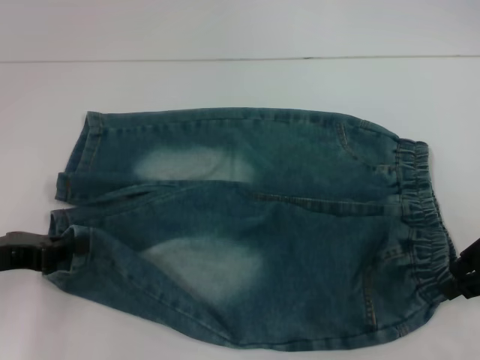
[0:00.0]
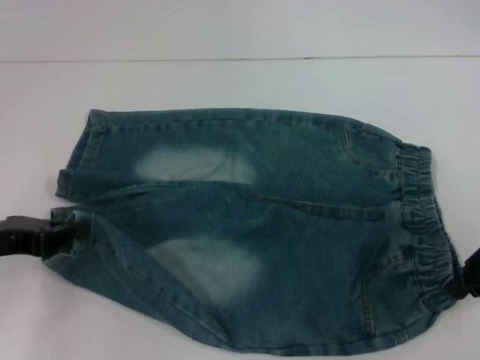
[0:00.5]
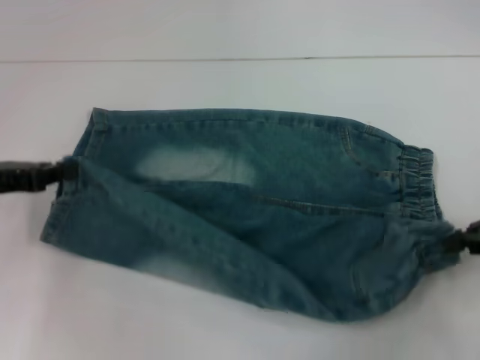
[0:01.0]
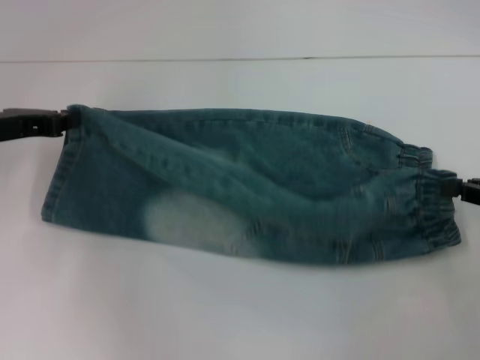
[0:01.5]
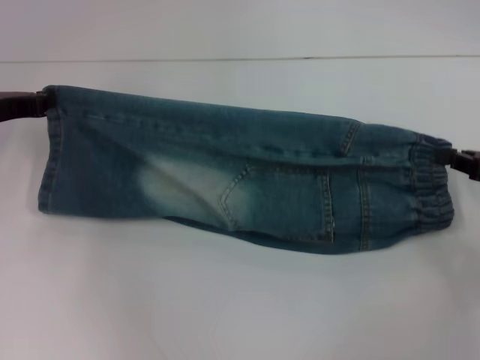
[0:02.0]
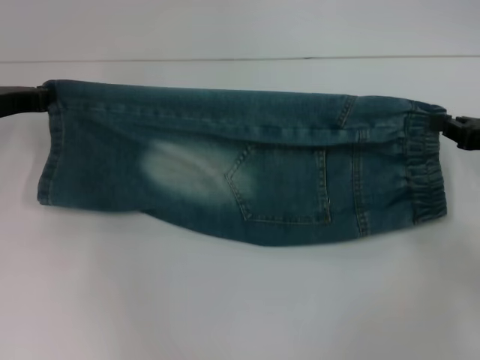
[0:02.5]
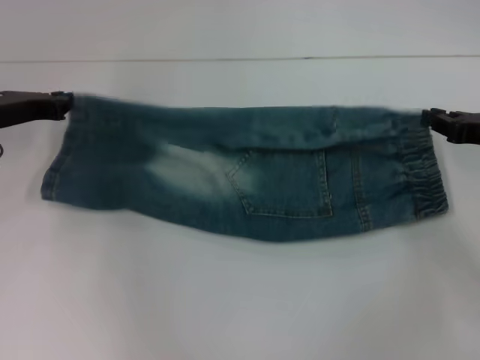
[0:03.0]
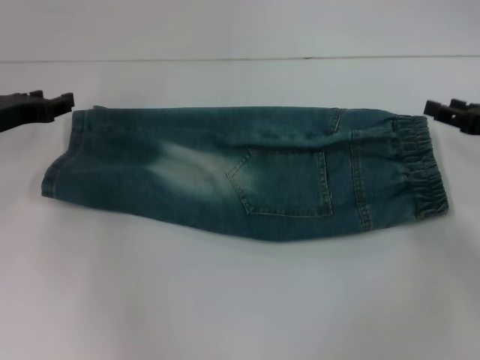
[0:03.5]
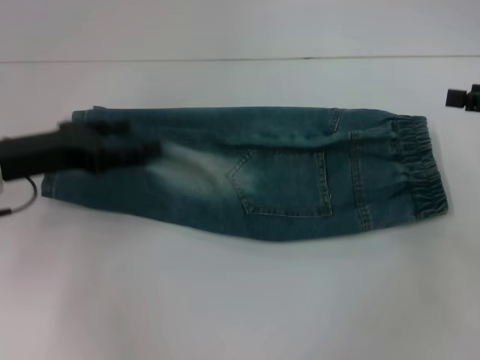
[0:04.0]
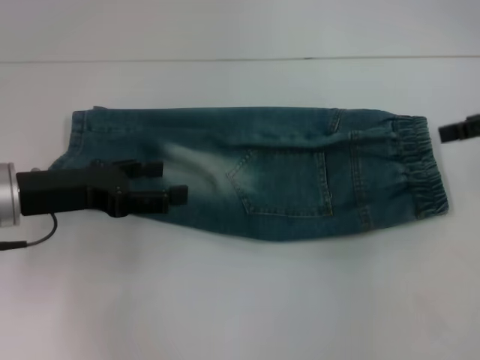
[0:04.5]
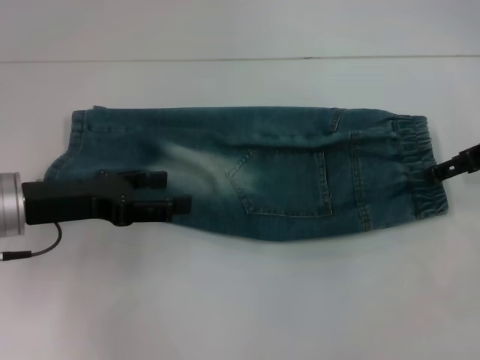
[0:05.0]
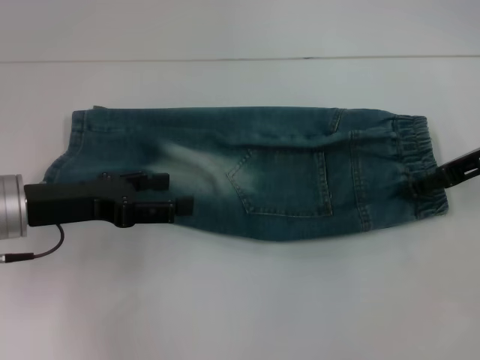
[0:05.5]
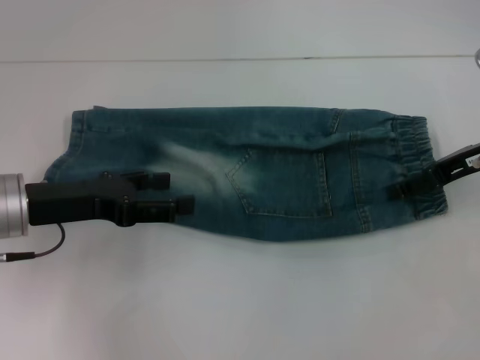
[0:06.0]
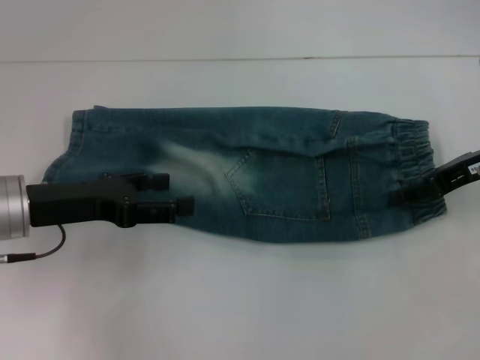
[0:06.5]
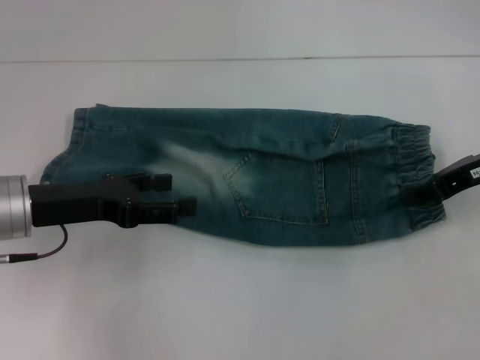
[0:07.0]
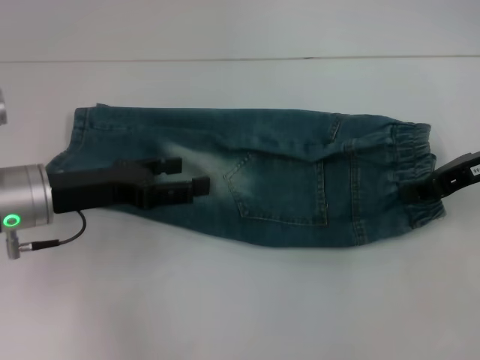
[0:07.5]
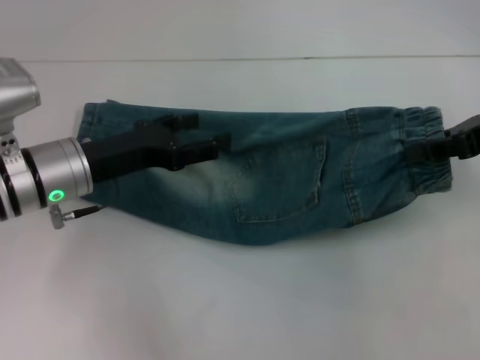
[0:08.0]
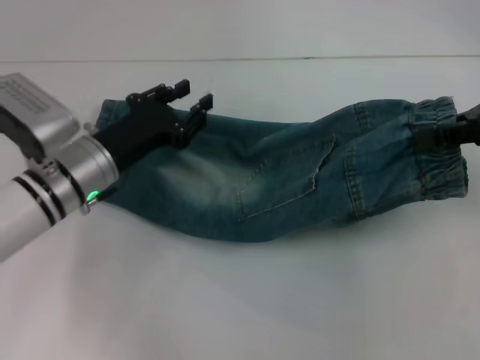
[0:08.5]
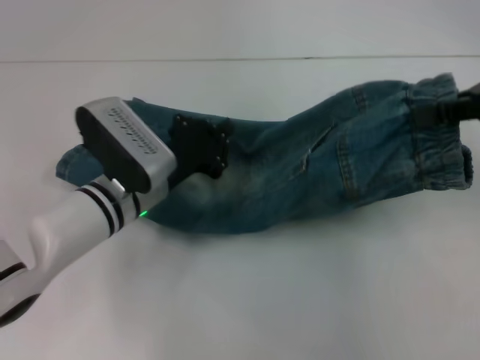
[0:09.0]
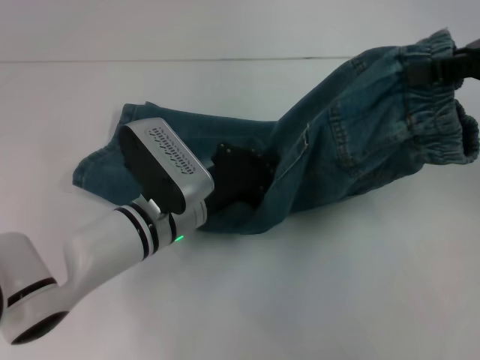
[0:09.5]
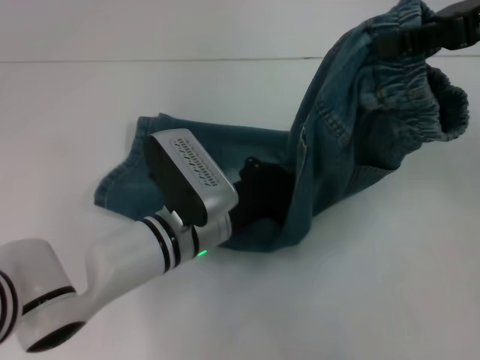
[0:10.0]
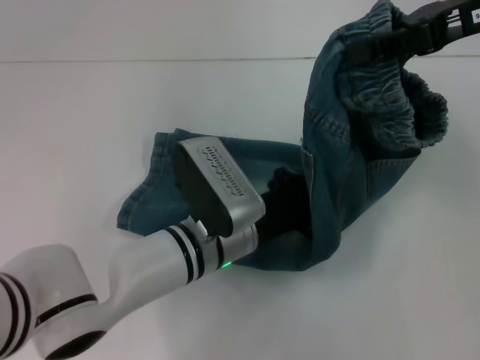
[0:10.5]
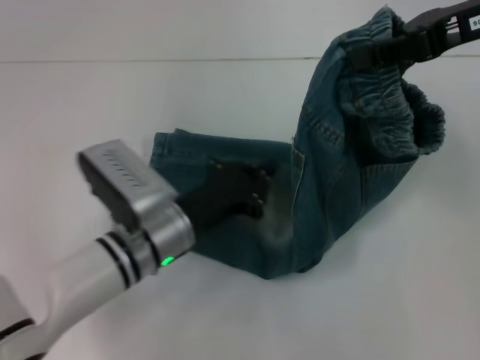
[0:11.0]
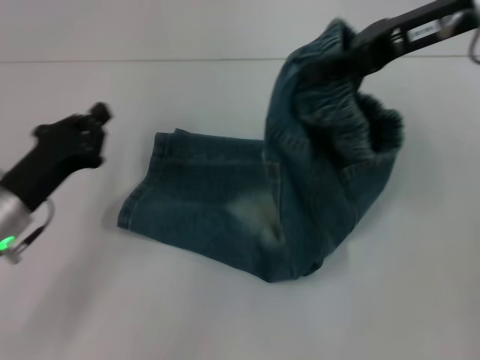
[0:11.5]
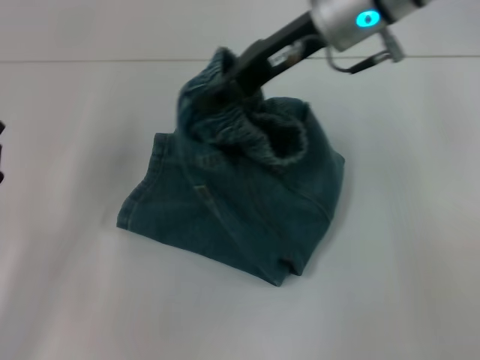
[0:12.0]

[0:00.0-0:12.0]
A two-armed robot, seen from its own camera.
Step, 0:00.0 to 0:03.0: Fold upward with your right hand.
Step, 0:03.5 to 0:06.5: Grab the waistband with your right hand.
Step, 0:07.0 to 0:10.5: Press the middle of the pants with your left hand.
0:00.0 to 0:02.0: The left gripper travels forward by roughly 10 cm, while the right gripper heads downward and to the right, covering roughly 10 cm, and closes.
0:02.0 to 0:04.0: The left gripper goes approximately 5 cm backward, and opens, while the right gripper goes approximately 5 cm upward, and opens up.
0:04.0 to 0:06.0: The right gripper is displaced to the left by roughly 10 cm.
0:06.0 to 0:08.0: The left gripper changes place by some 5 cm. The right gripper heads upward, covering roughly 5 cm, and closes up.
0:08.0 to 0:10.0: The left gripper moves to the right and downward, some 15 cm, and closes. The right gripper goes approximately 10 cm upward.
0:10.0 to 0:12.0: The two grippers go roughly 20 cm to the left.

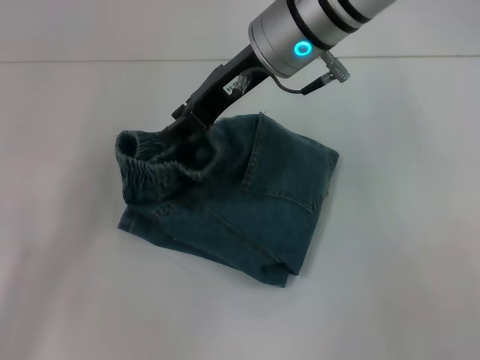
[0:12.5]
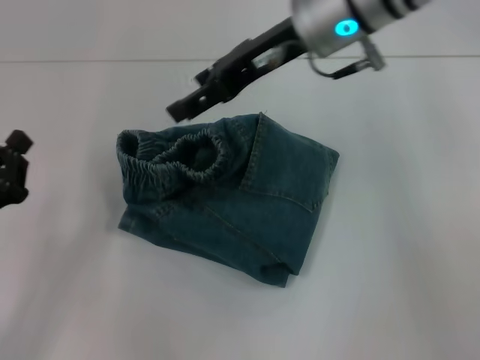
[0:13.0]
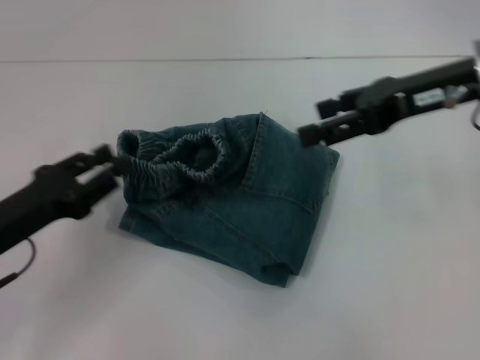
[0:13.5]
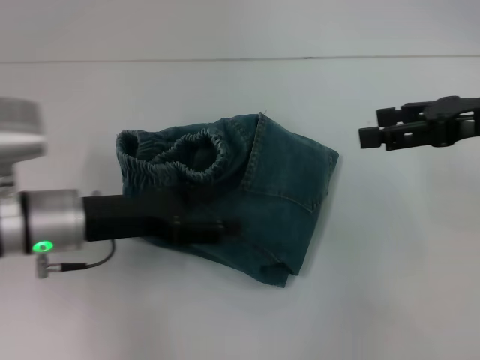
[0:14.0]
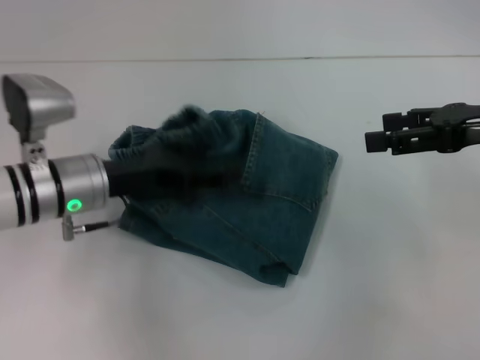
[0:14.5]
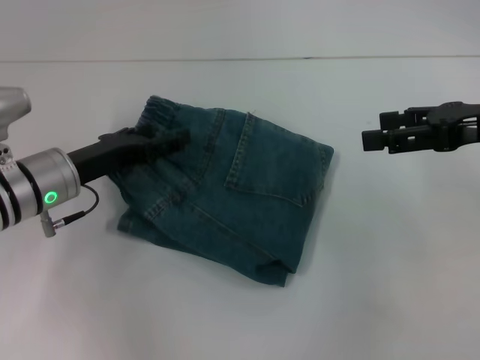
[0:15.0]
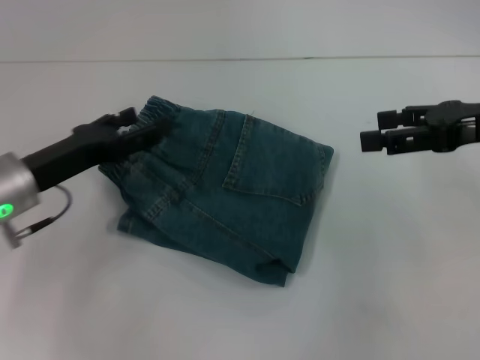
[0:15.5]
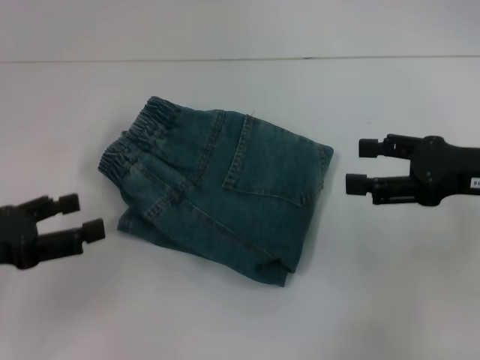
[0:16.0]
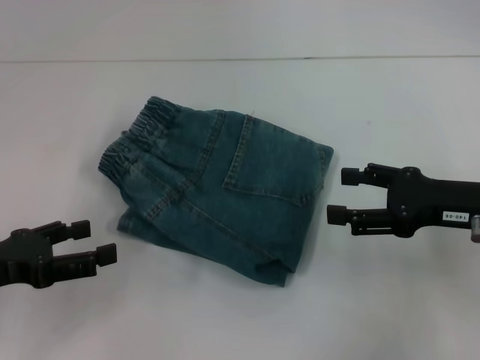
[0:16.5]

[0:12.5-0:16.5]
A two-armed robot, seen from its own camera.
0:12.5 to 0:14.5: The left gripper travels to the right and forward by roughly 15 cm, and opens; the right gripper heads to the right, covering some 25 cm, and opens up.
0:14.5 to 0:16.5: The right gripper shifts about 10 cm downward, while the left gripper travels to the left and backward by some 15 cm.
